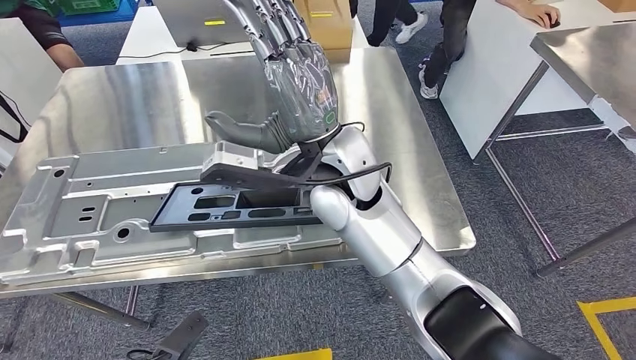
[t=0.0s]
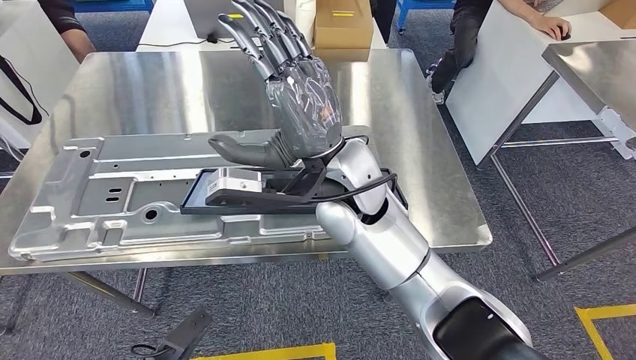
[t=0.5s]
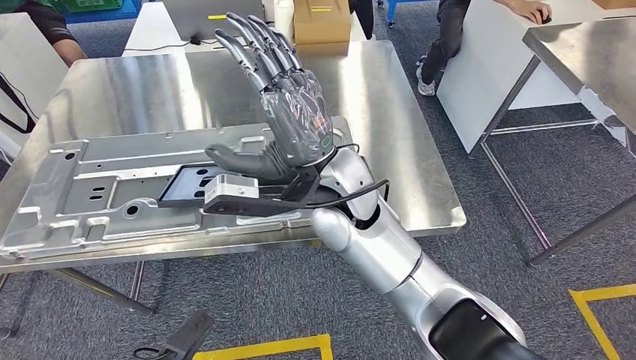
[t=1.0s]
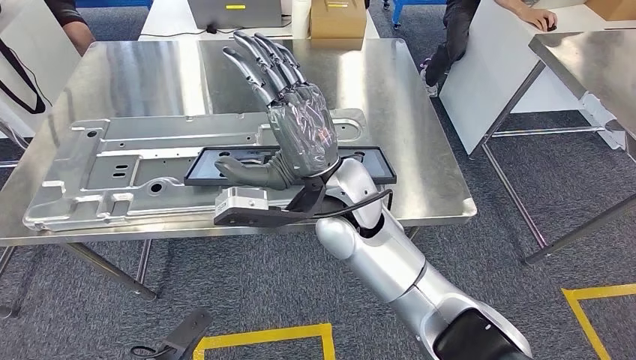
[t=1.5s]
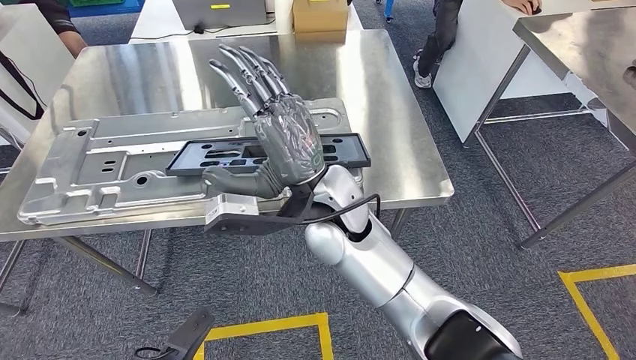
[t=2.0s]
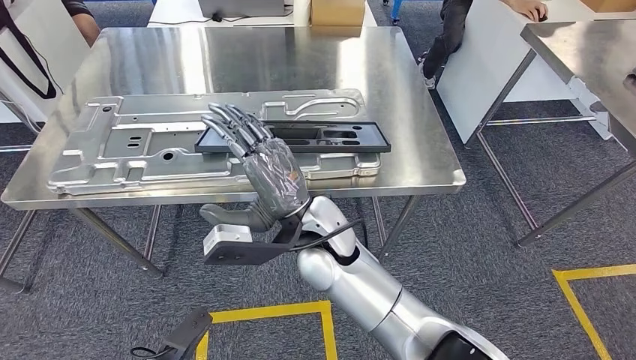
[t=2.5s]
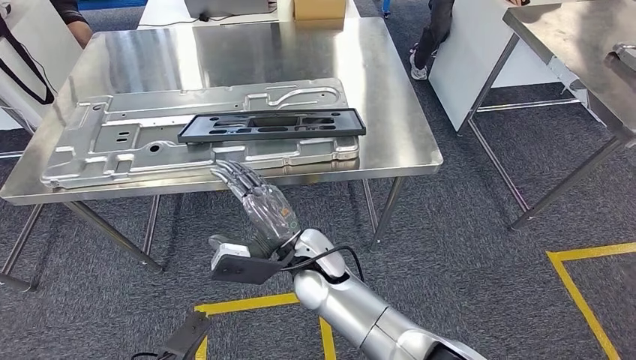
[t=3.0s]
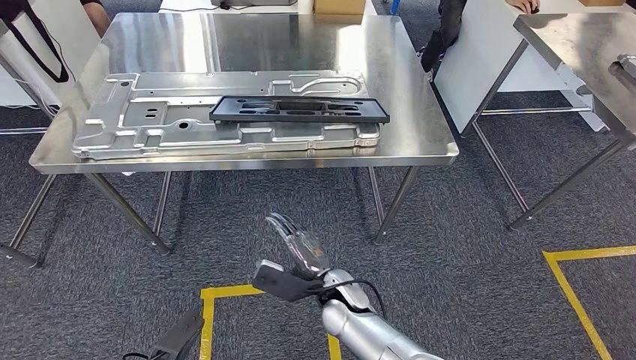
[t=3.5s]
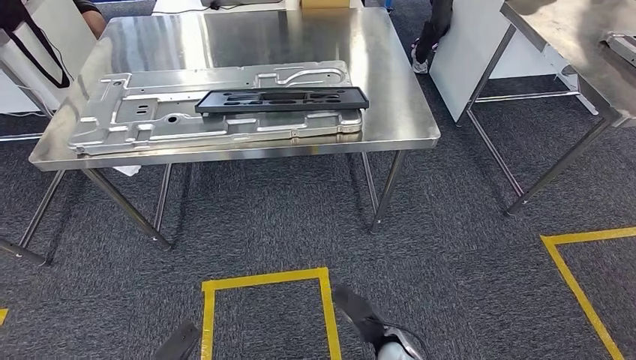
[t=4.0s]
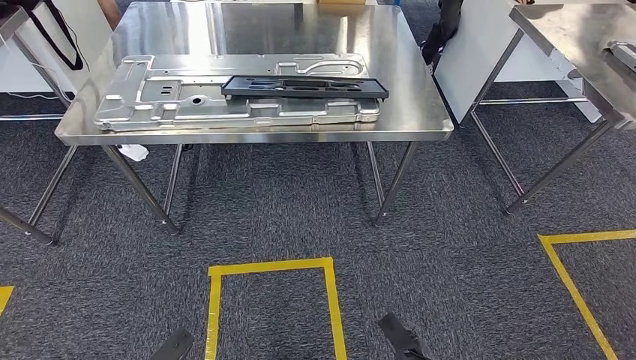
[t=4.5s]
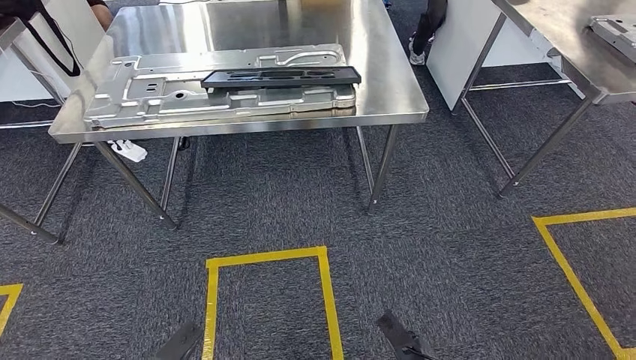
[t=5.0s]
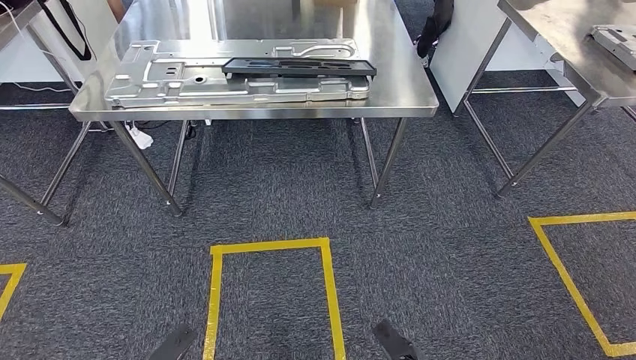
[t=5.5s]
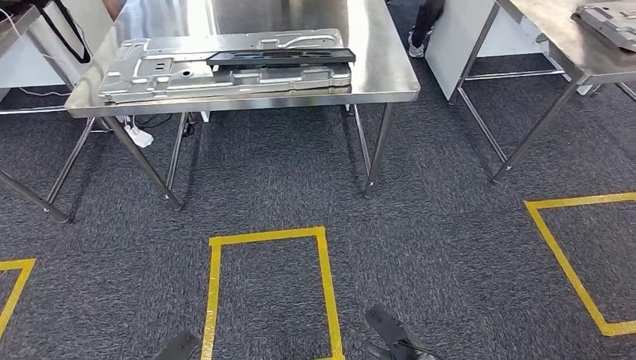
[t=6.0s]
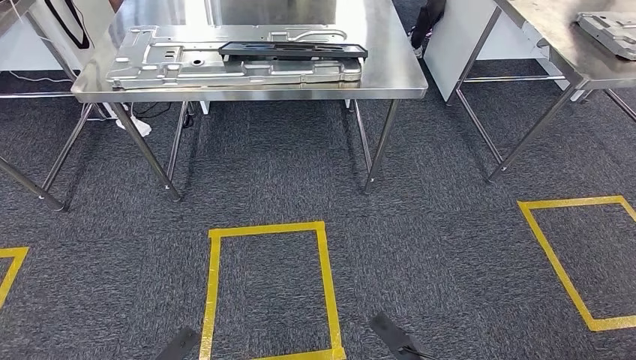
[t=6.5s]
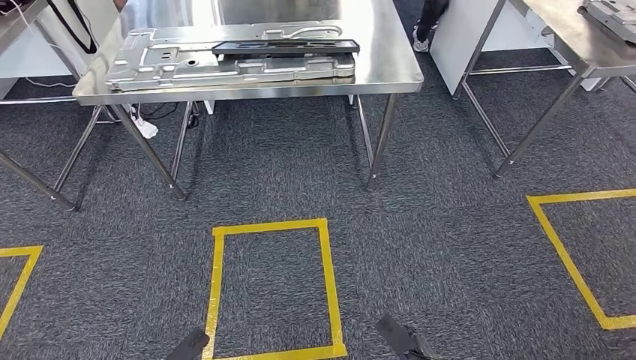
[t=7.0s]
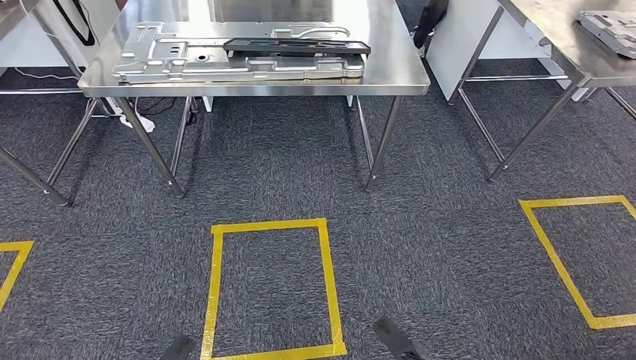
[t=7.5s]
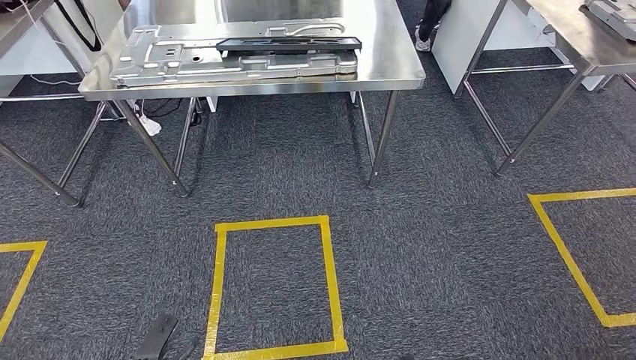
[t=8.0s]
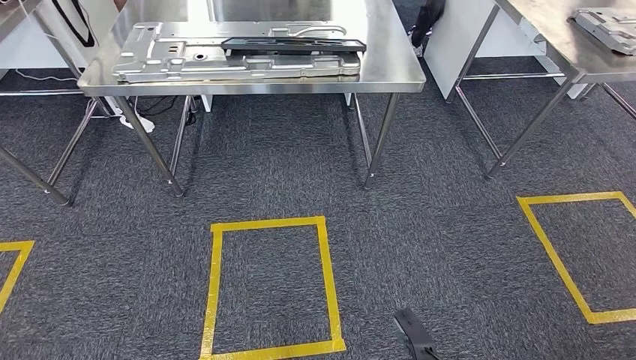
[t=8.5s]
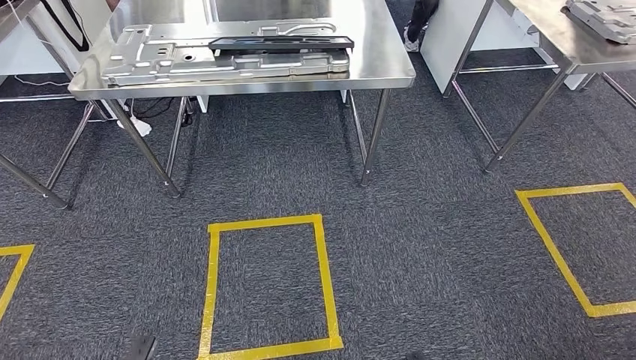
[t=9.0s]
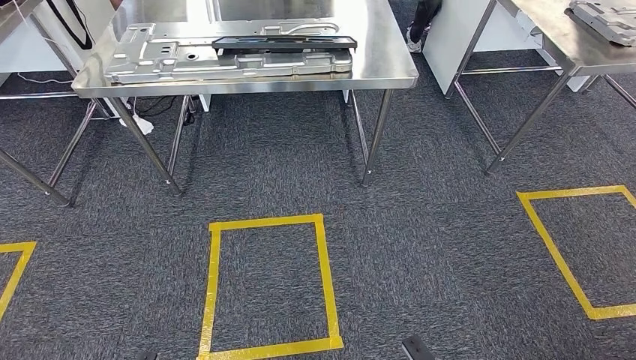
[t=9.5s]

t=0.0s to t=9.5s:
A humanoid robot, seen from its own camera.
Step, t=0.5s to t=9.5s: Move to the initial position of the shelf.
t=7.5s to t=9.5s: The right hand moves forward and backward over roughly 10 cm, changing direction 2 times. The left hand moves backward and to the left, roughly 10 cm.
